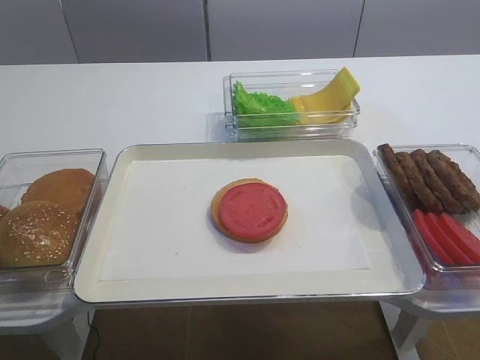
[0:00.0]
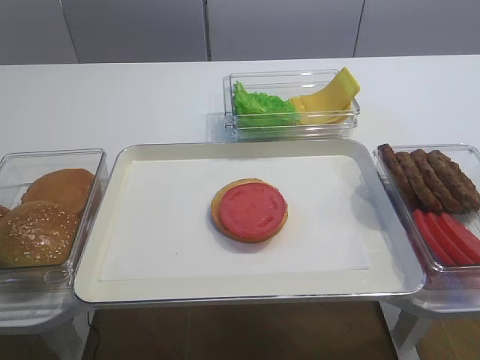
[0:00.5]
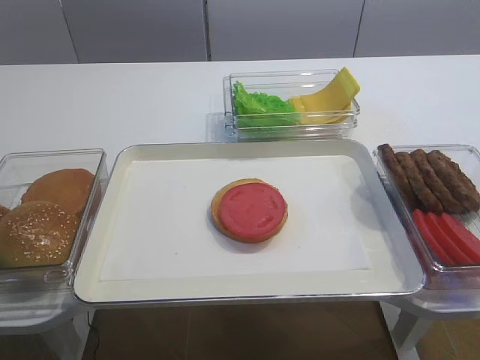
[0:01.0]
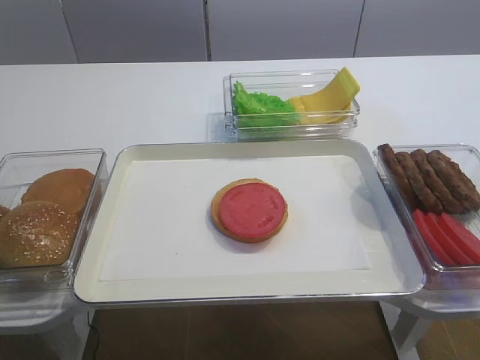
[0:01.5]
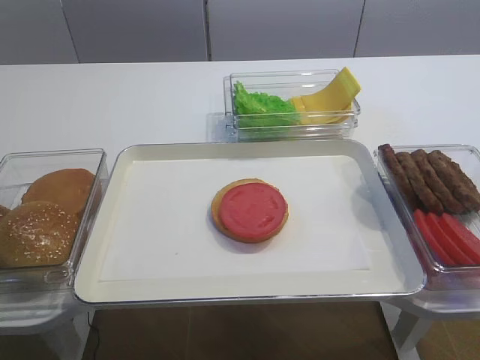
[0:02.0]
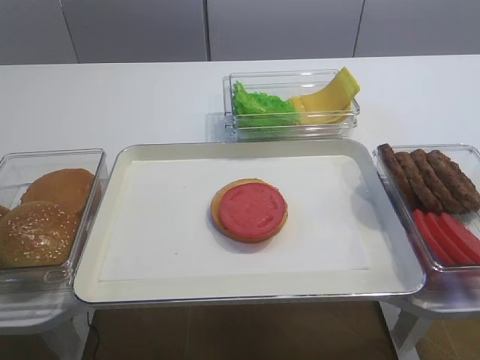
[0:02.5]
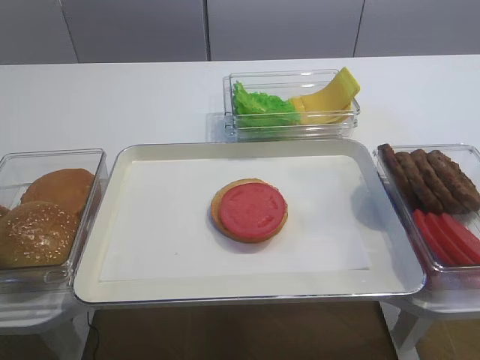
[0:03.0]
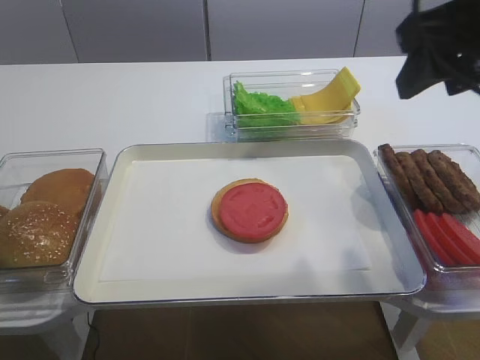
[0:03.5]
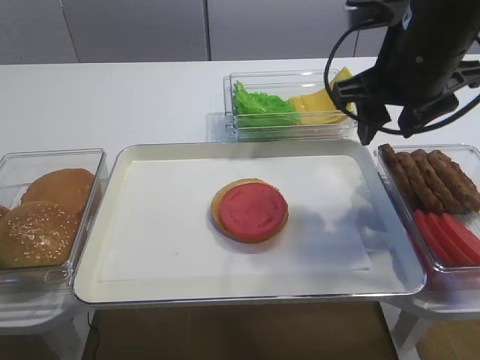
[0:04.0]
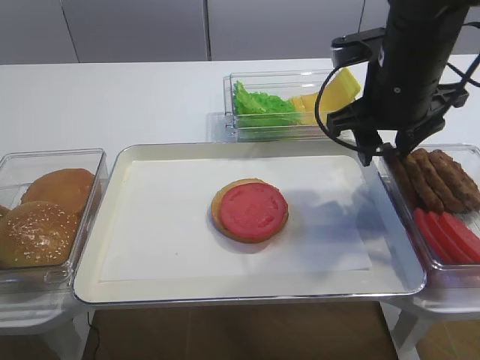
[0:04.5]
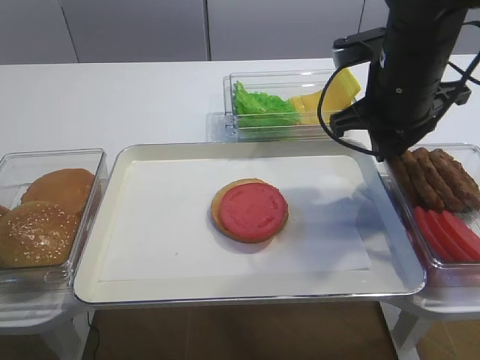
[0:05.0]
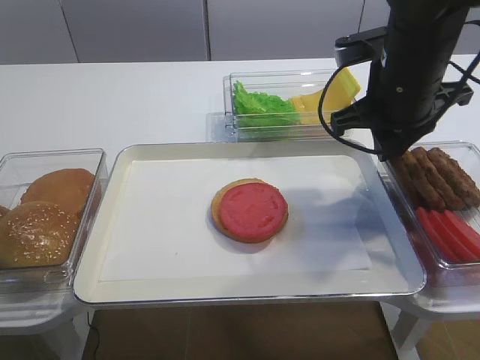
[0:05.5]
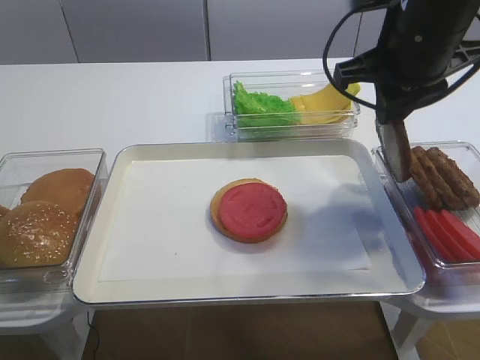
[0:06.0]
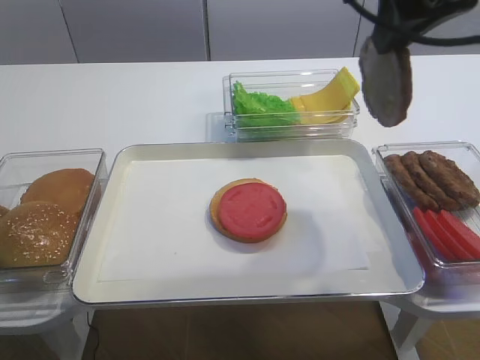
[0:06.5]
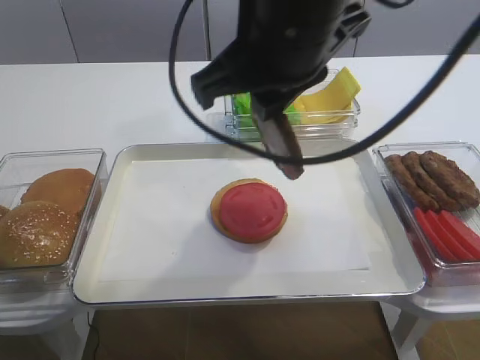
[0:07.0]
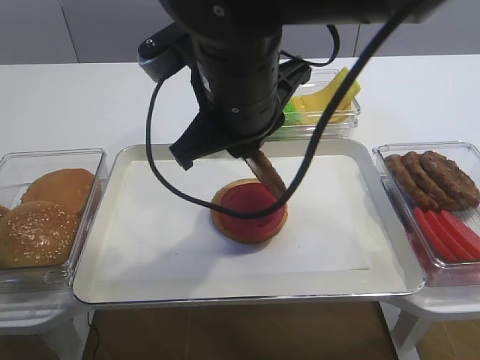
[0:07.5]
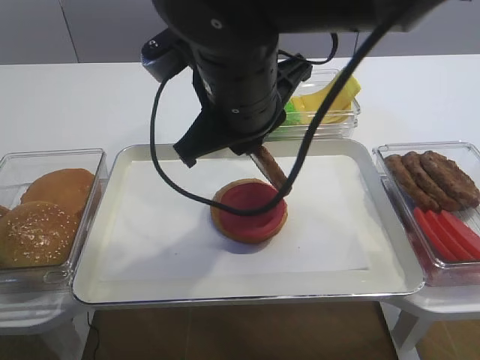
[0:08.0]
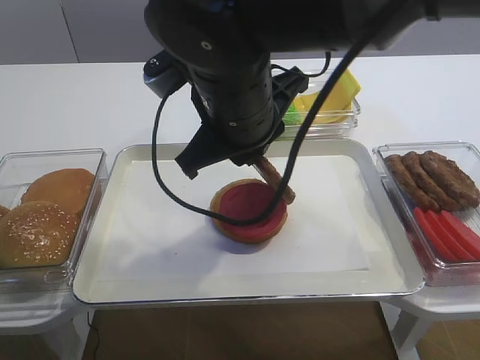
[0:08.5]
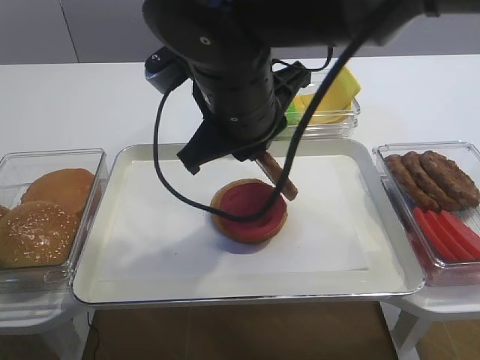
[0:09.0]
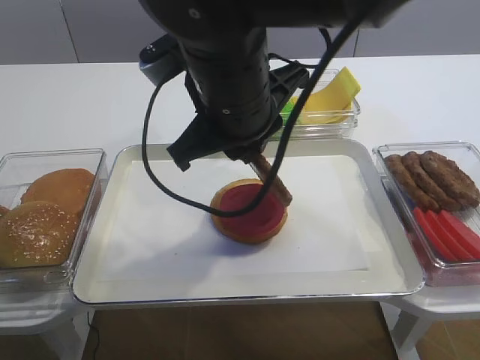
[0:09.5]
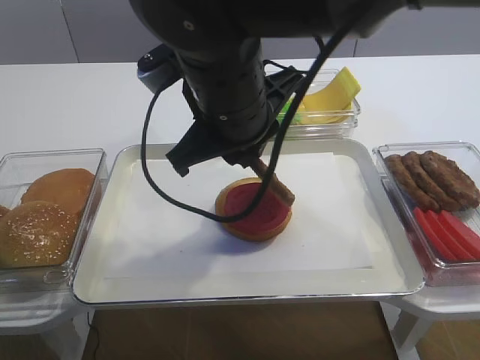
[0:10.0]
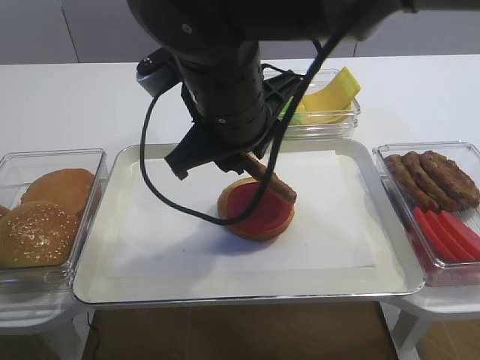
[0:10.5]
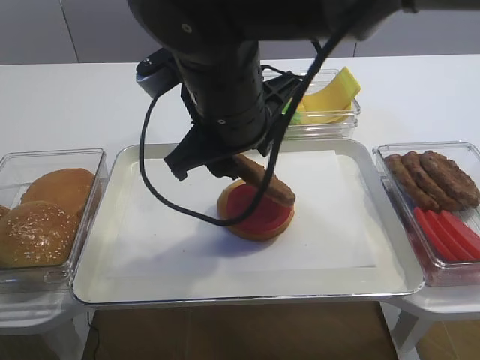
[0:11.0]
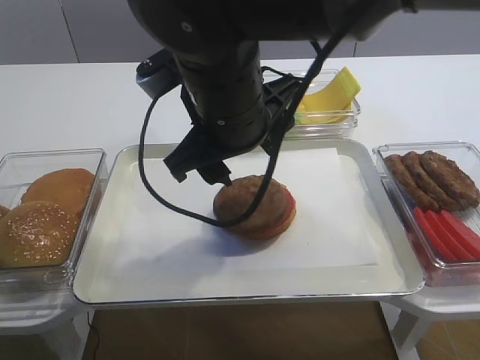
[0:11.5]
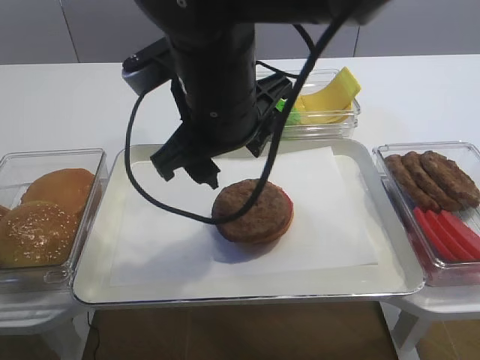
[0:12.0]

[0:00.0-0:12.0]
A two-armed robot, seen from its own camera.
Step, 0:00.0 to 0:06.0: Pick up the cutlet with the right gripper.
0:02.0 to 0:04.0: The right gripper moves forward, about 30 cm, and opens.
0:04.0 to 0:06.0: The right gripper closes up.
0:06.0 to 0:08.0: The right gripper goes about 15 cm to the left.
0:08.0 to 0:10.0: The grippers make only small movements.
0:10.0 to 0:12.0: The right gripper opens.

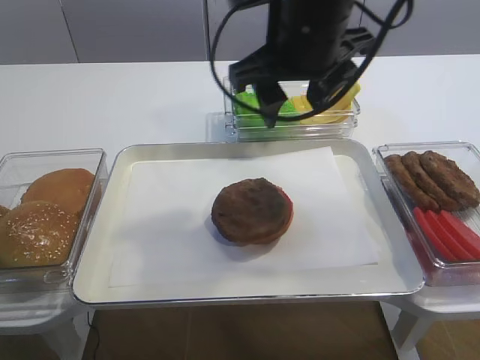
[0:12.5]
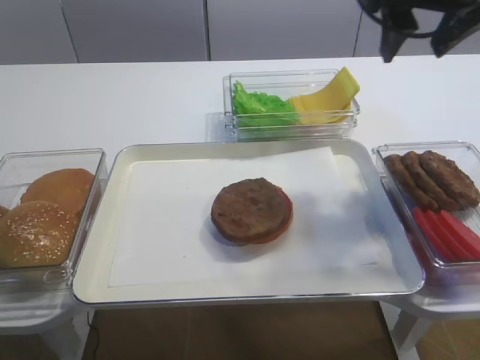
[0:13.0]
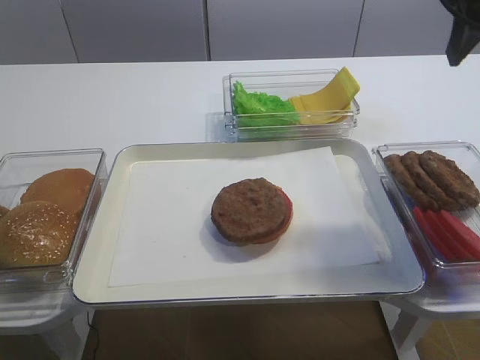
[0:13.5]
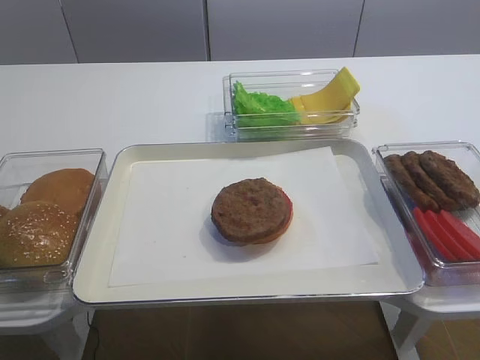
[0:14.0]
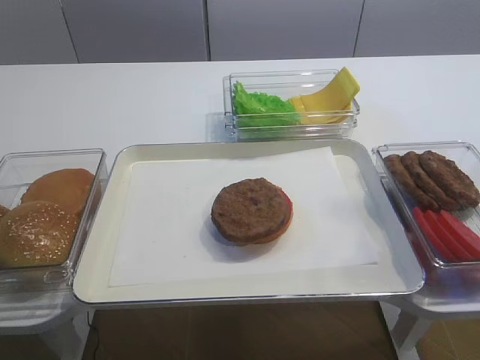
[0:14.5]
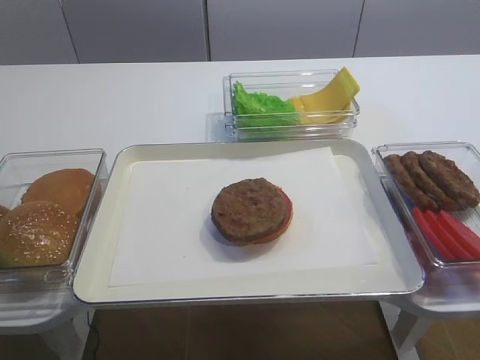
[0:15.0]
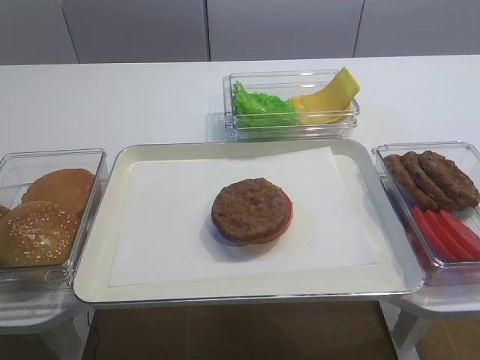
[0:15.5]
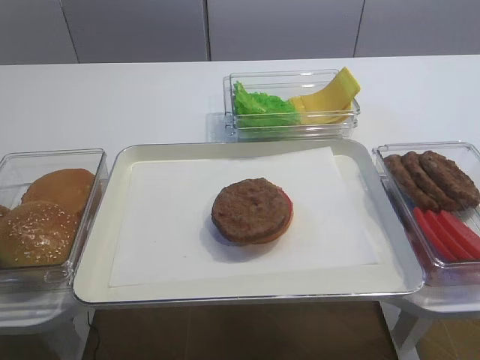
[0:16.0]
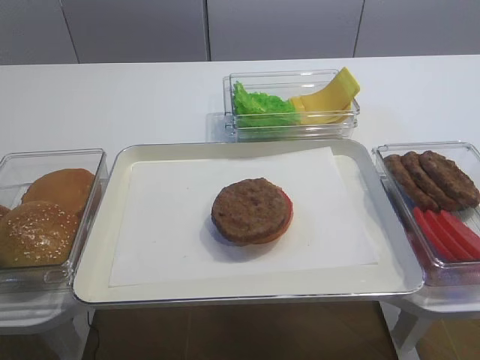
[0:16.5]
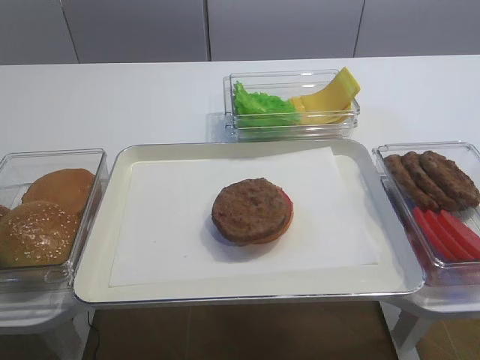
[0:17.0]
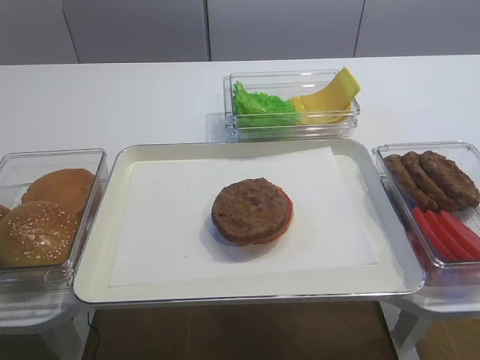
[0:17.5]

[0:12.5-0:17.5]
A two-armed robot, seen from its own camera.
0:12.5 to 0:15.0: The right gripper travels backward and to the right by some 40 cm.
